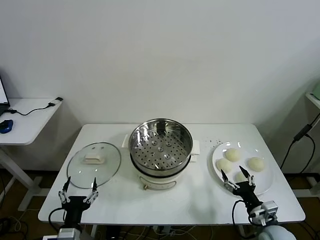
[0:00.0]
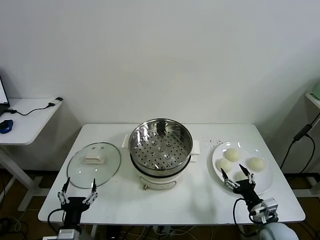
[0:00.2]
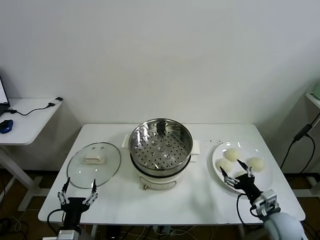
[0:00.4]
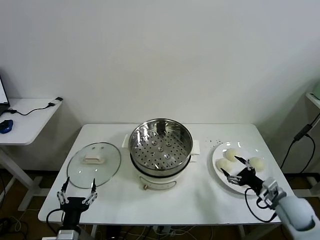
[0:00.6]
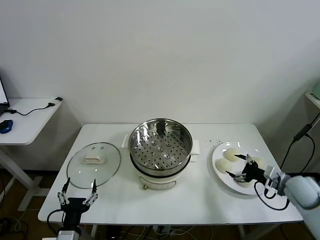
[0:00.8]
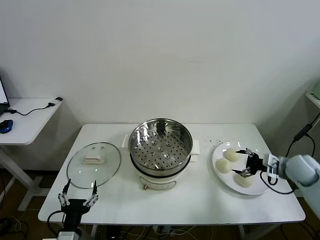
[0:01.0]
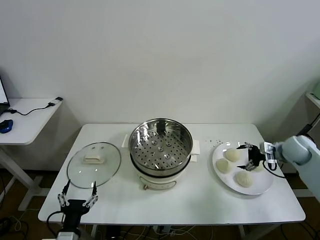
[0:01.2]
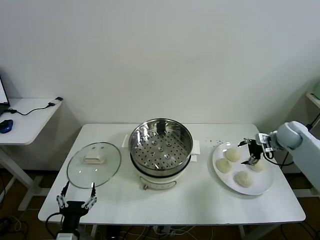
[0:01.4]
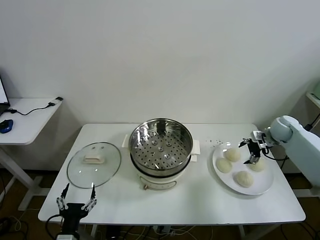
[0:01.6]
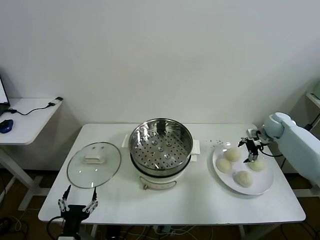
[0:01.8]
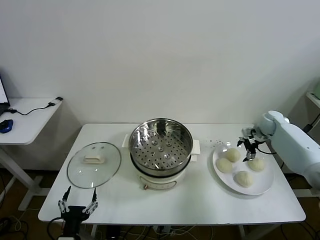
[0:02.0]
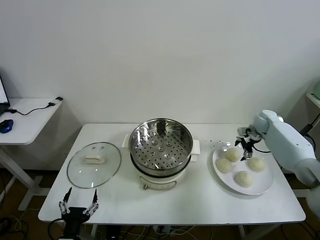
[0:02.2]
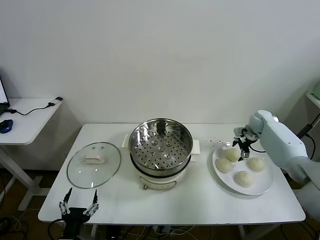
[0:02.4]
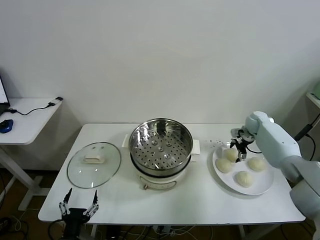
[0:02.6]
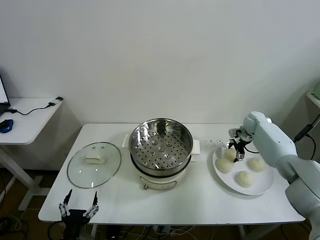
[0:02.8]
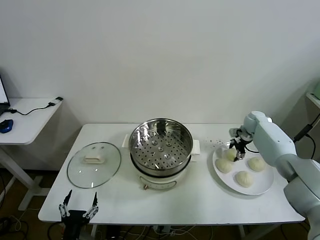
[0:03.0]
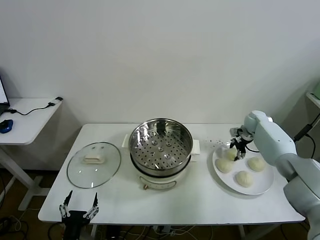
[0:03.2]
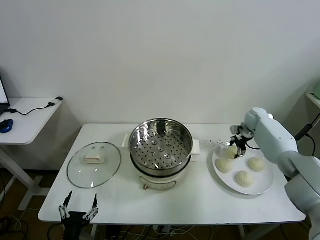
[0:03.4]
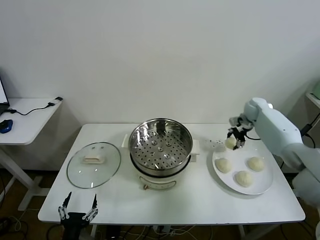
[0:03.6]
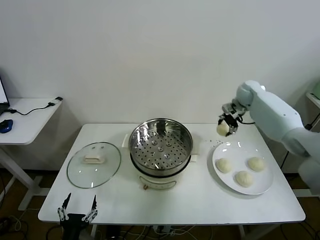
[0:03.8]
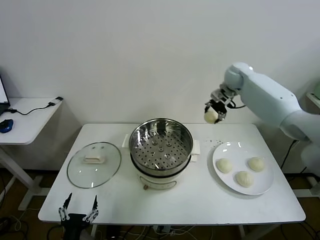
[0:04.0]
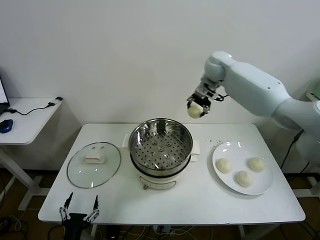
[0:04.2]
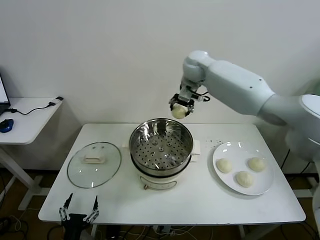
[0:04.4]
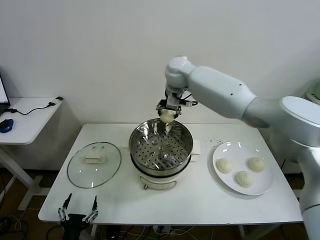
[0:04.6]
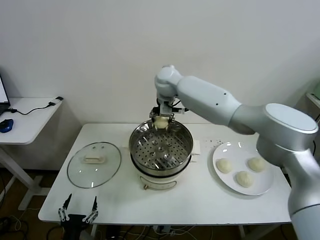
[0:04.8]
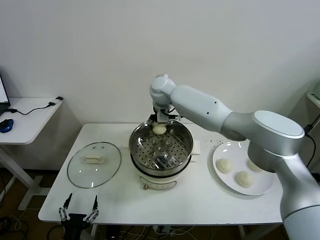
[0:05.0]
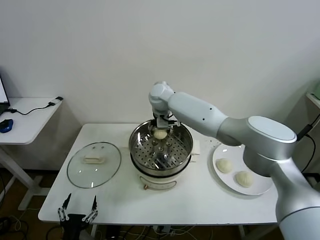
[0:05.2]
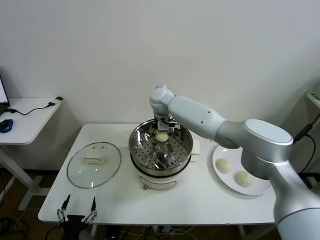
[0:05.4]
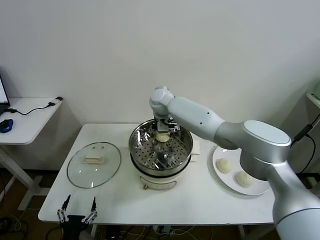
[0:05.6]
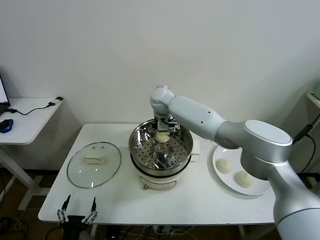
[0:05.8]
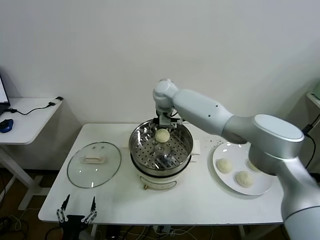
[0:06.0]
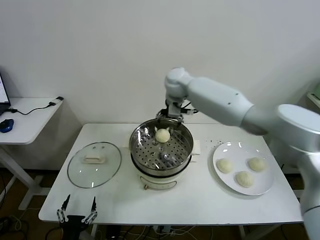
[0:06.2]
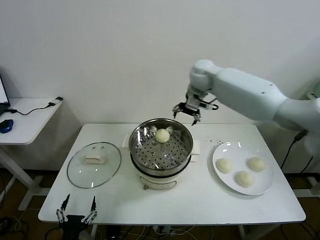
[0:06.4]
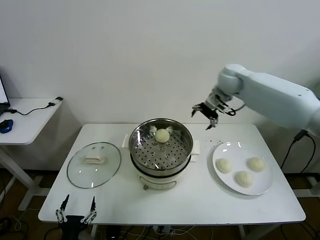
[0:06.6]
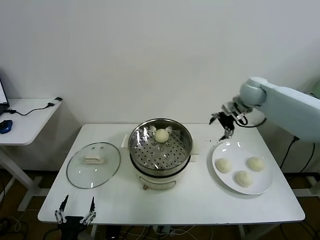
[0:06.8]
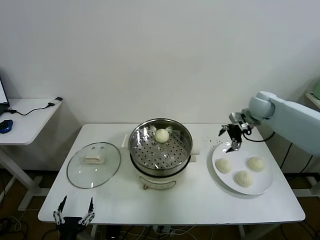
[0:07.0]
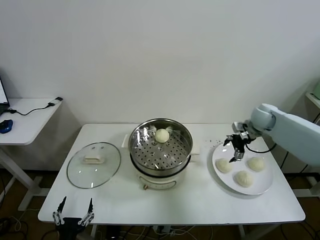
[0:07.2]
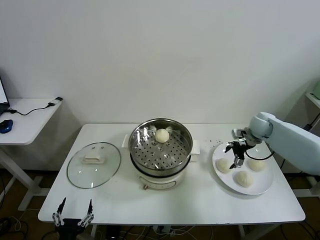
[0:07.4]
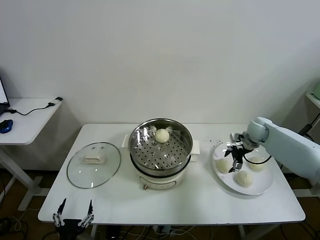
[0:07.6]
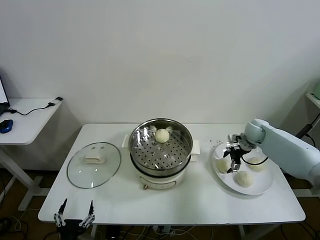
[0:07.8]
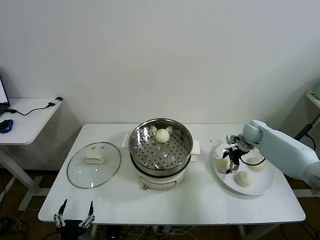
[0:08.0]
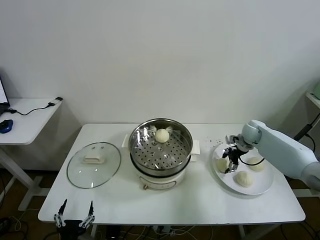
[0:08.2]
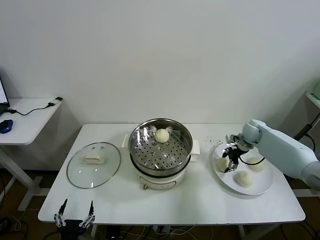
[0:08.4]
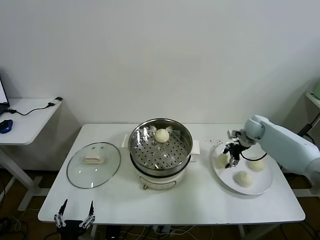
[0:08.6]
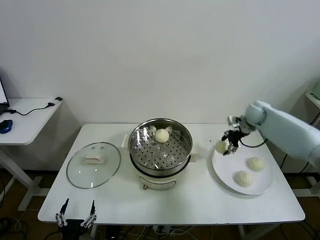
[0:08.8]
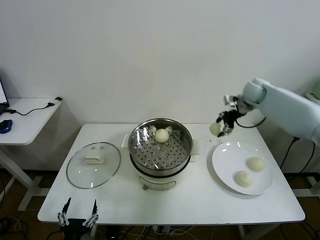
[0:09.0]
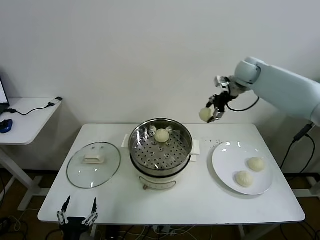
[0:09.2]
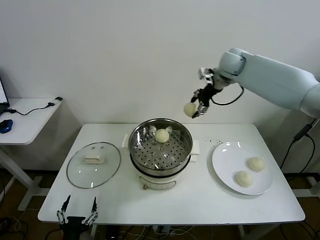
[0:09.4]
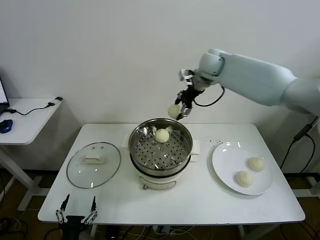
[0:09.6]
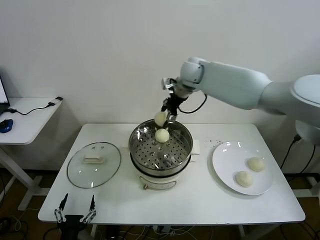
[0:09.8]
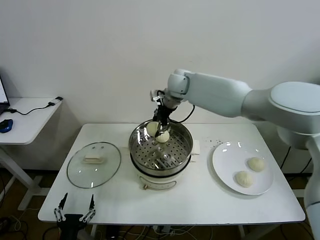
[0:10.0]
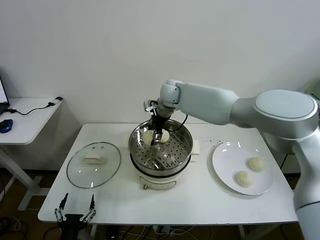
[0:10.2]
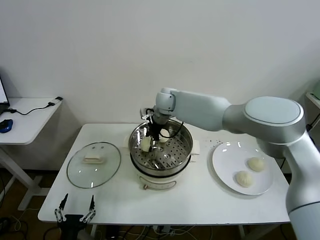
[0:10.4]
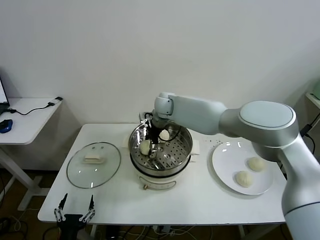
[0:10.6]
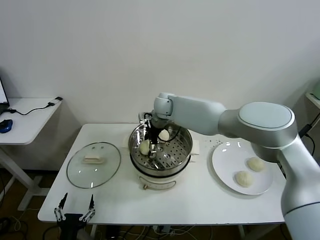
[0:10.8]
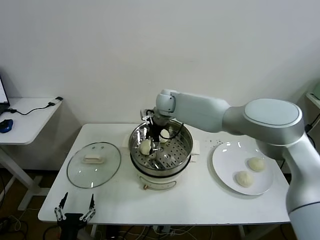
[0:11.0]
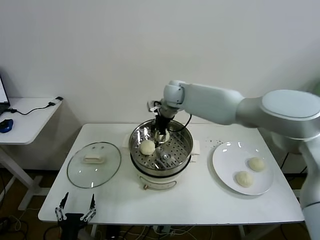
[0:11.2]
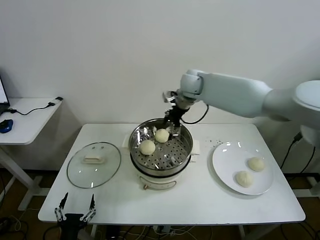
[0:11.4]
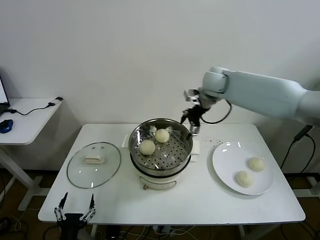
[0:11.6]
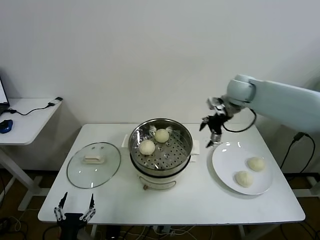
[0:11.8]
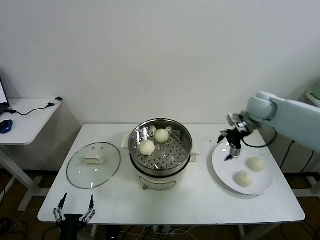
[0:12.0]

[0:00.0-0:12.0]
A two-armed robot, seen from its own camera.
Task of the whole recording: take steamed baozi put them in steamer then cover it.
Step, 0:00.0 to 0:03.0: Grasp the baozi in the plate with right gripper.
Step, 0:03.4 to 0:05.8: Place the baozi on the steamer with right gripper.
Step, 0:06.0 to 0:08.2: Grasp the baozi in the plate with right gripper.
Step, 0:08.6 to 0:11.0: Place the baozi on the steamer with right gripper.
0:01.6 to 0:03.0: The right gripper goes about 10 cm forward and to the left, and closes.
0:03.0 to 0:04.4: The right gripper shifts approximately 40 cm to the left and upward.
0:04.4 to 0:06.0: The right gripper heads downward, covering about 5 cm, and opens up.
0:06.0 to 0:07.6: The right gripper travels to the right and downward by some 40 cm.
0:07.6 to 0:09.0: The right gripper travels upward by about 20 cm, and closes its fingers.
0:09.0 to 0:10.4: The right gripper is displaced to the left by approximately 30 cm.
0:10.4 to 0:12.0: The right gripper is displaced to the right by roughly 35 cm, and opens up.

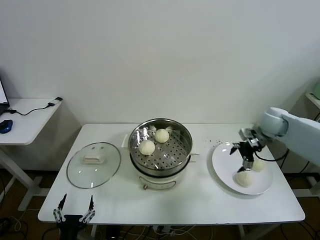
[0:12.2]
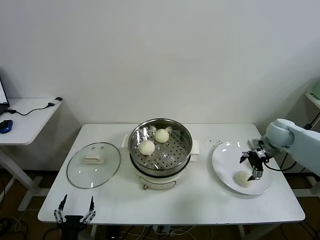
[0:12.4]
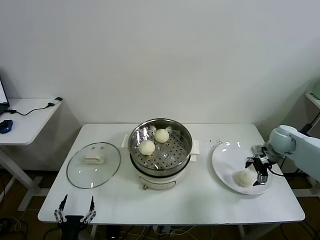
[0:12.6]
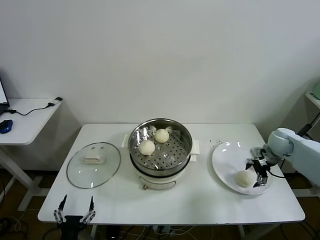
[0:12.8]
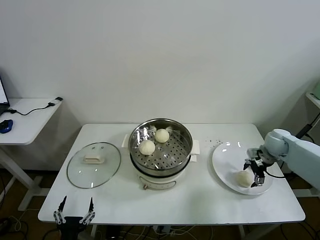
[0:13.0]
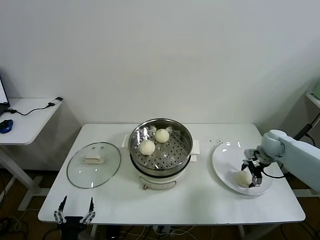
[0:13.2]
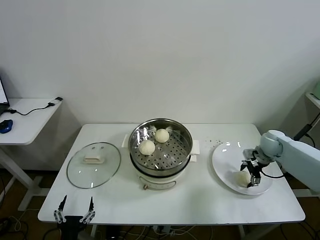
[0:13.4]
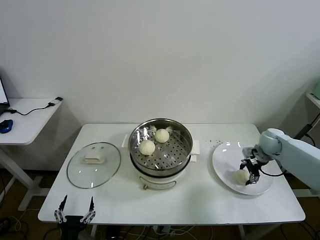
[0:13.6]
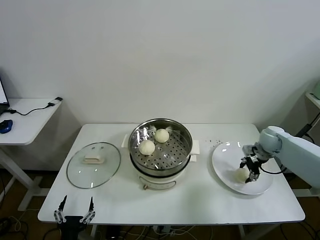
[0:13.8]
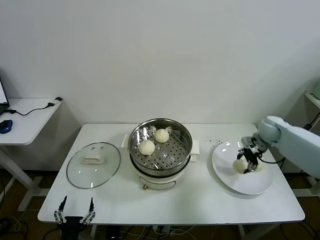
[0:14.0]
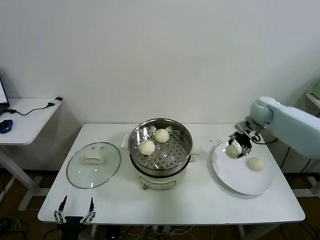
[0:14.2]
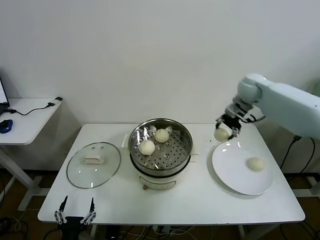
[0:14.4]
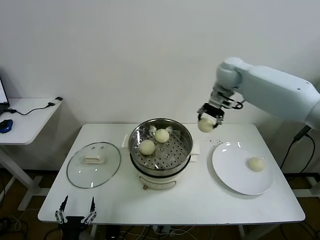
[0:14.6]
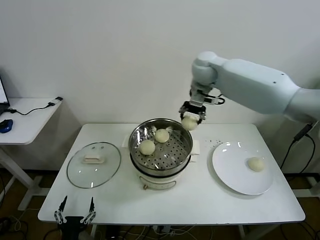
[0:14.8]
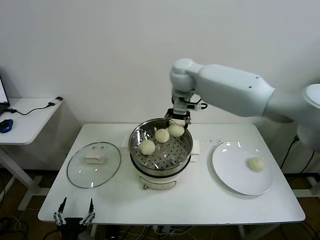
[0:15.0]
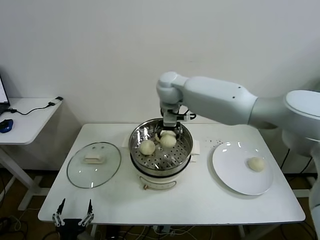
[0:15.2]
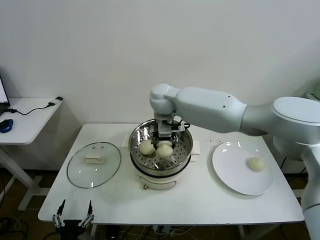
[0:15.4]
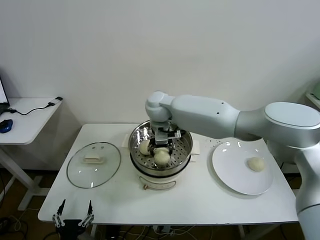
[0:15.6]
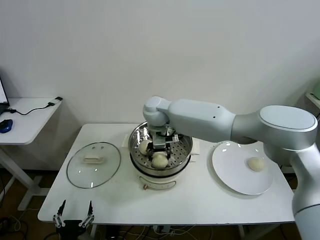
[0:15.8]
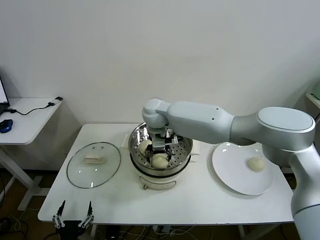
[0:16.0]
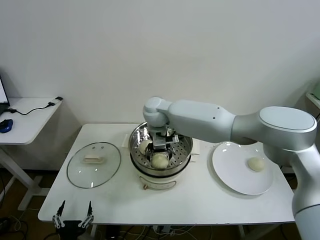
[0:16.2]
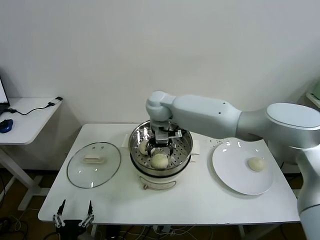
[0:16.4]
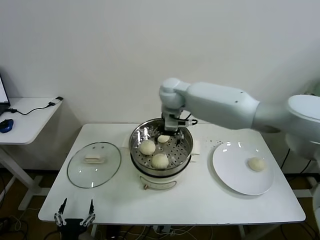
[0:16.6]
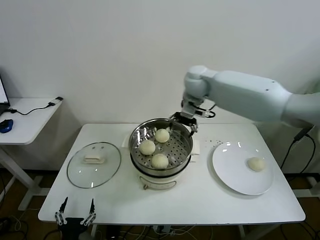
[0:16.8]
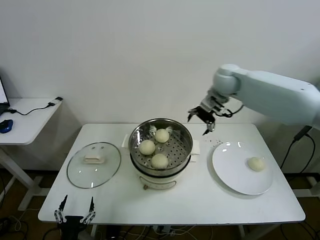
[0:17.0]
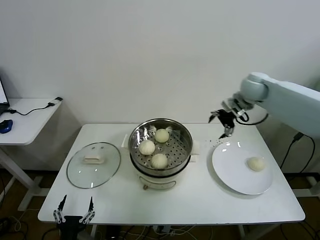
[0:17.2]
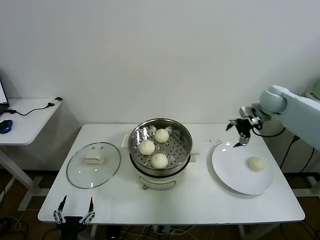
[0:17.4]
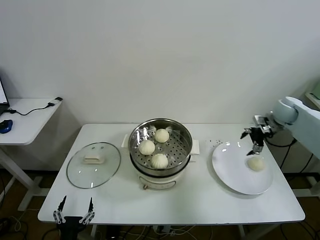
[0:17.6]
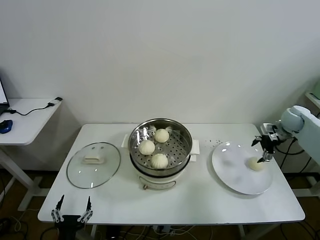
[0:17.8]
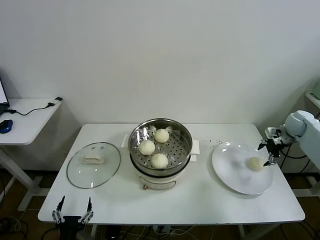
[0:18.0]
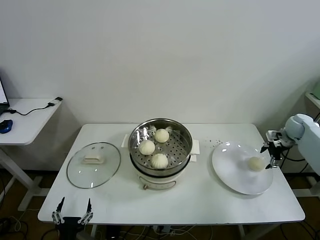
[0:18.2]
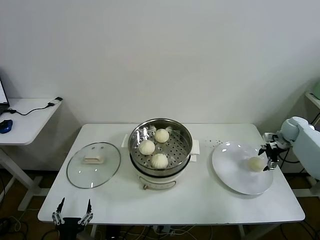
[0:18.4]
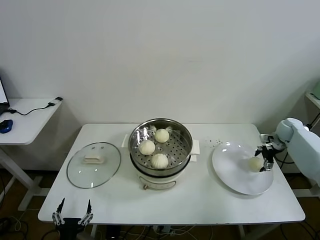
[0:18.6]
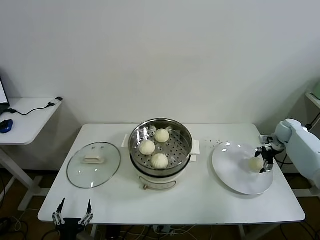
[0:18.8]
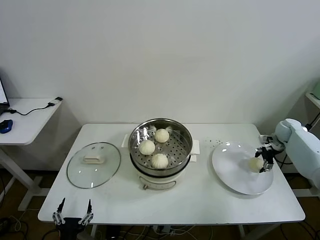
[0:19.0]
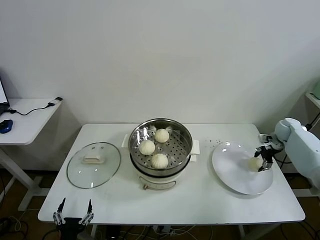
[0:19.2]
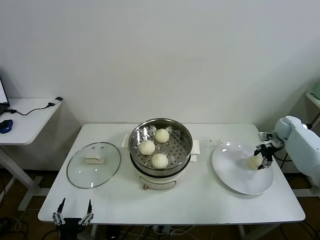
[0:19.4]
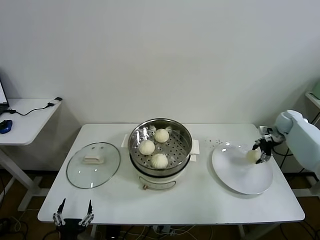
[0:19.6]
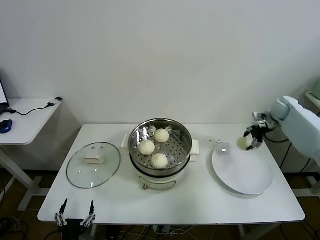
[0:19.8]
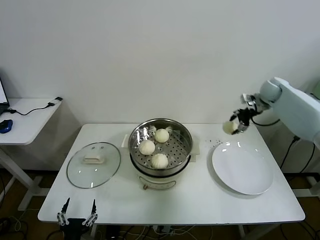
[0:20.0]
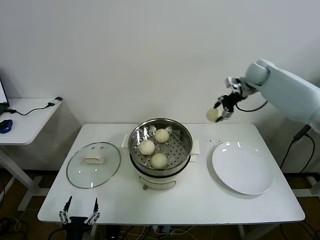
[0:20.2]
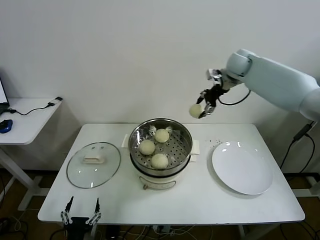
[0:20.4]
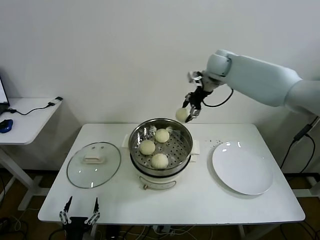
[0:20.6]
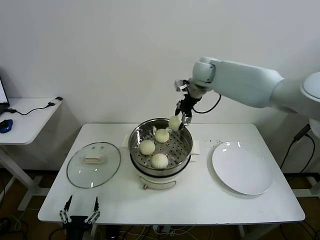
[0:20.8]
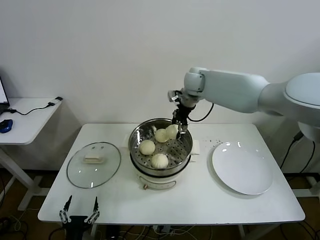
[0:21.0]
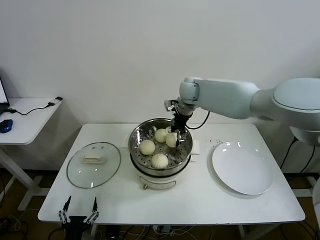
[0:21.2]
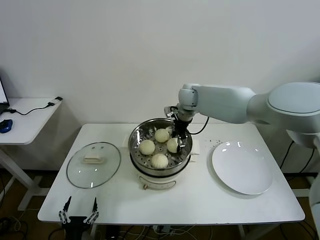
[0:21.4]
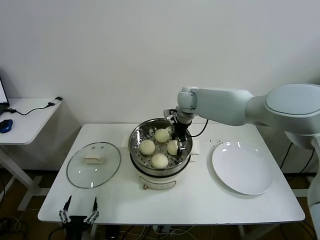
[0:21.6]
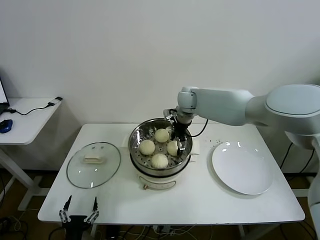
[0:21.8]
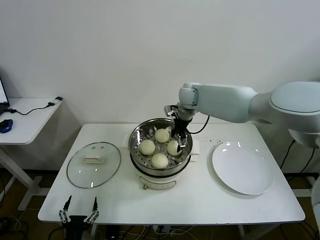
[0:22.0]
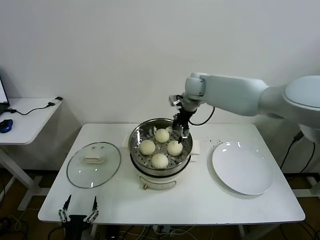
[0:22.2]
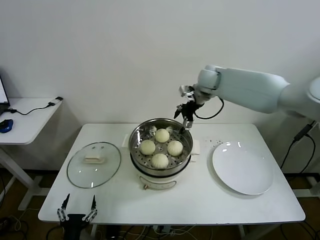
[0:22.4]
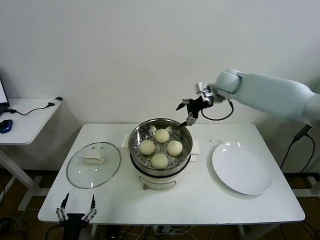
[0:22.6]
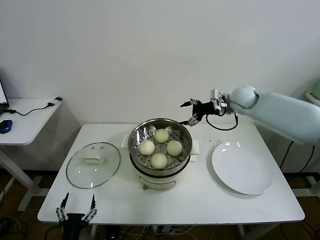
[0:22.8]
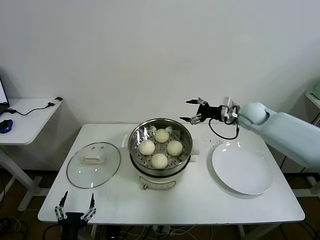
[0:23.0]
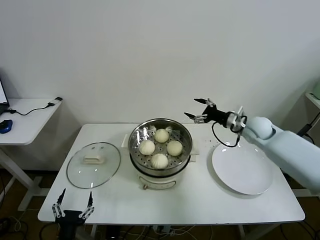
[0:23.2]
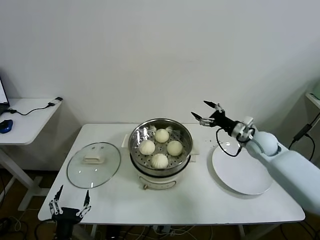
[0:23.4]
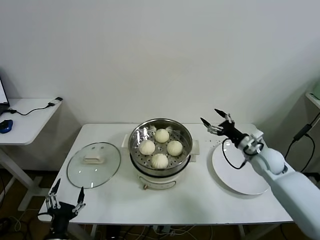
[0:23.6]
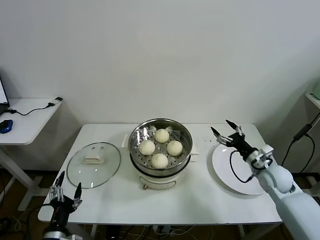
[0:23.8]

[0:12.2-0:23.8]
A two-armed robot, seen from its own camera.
Task of the whole recording: take steamed baozi put them in steamer then cover it.
Step, 0:12.2 to 0:13.6: Grasp the baozi in the plate with right gripper.
Step, 0:14.0 to 0:16.2: Place the baozi on the steamer with right gripper.
Step, 0:16.4 to 0:19.2: Grasp the baozi in the plate with right gripper.
Step, 0:19.4 to 0:21.8: Place the baozi on the steamer with right gripper.
0:12.2 to 0:13.6: The right gripper is displaced downward by roughly 10 cm, and closes up.
0:13.6 to 0:15.0: The right gripper is displaced to the left and upward by about 40 cm.
0:15.0 to 0:16.6: The right gripper opens its fingers.
0:16.6 to 0:18.0: The right gripper travels to the right by some 50 cm.
0:18.0 to 0:19.4: The right gripper changes place by approximately 5 cm, and closes its fingers.
0:19.4 to 0:21.0: The right gripper heads to the left and upward, covering approximately 40 cm.
0:21.0 to 0:22.4: The right gripper goes approximately 5 cm to the right, reaches roughly 5 cm downward, then returns, and opens.
0:22.4 to 0:23.8: The right gripper is displaced downward, backward and to the right by approximately 40 cm. Meanwhile the left gripper ends up about 5 cm from where it was.
